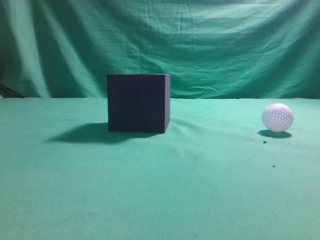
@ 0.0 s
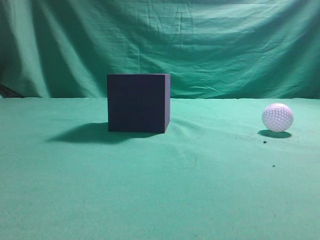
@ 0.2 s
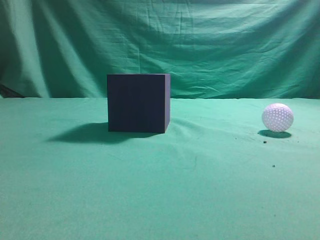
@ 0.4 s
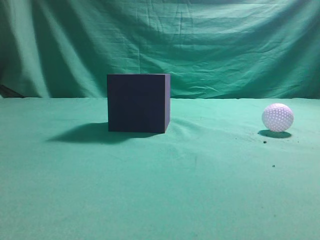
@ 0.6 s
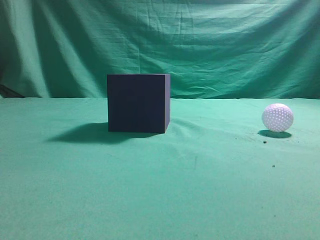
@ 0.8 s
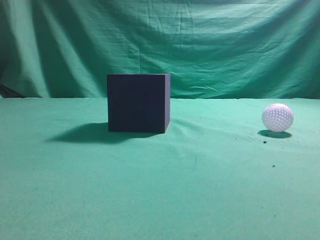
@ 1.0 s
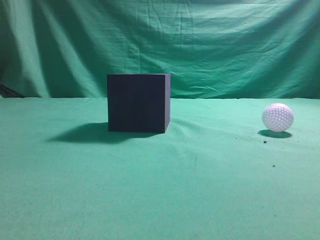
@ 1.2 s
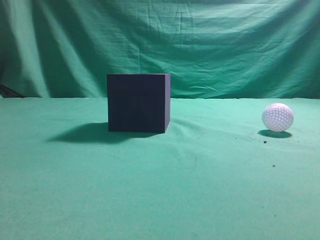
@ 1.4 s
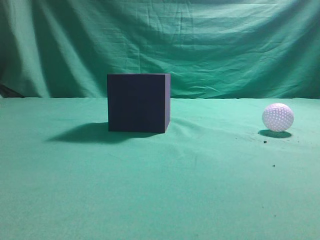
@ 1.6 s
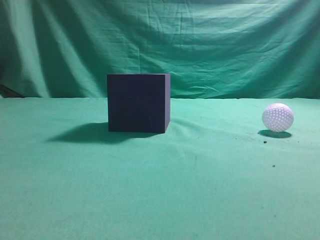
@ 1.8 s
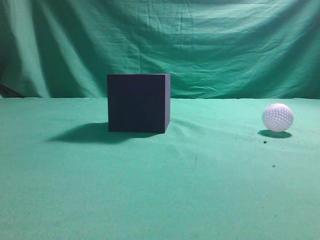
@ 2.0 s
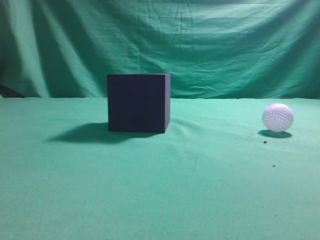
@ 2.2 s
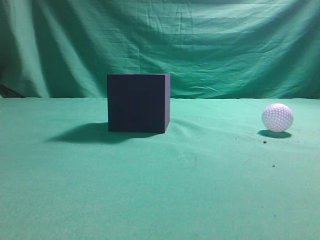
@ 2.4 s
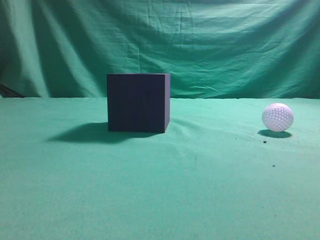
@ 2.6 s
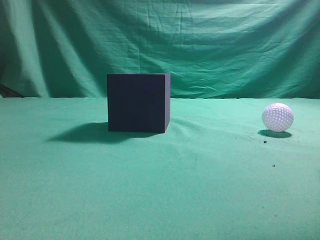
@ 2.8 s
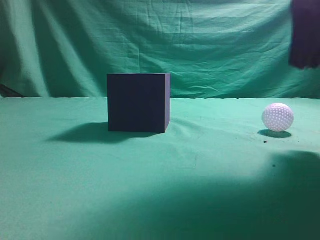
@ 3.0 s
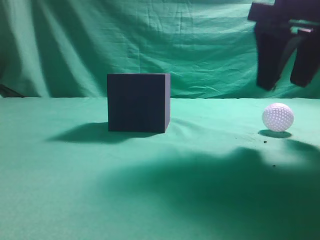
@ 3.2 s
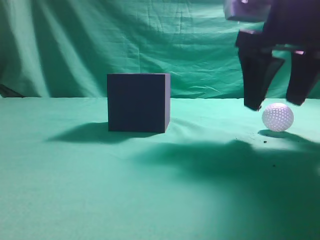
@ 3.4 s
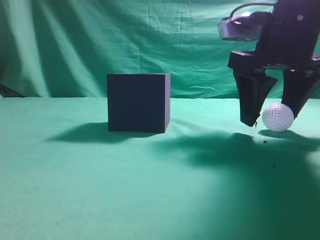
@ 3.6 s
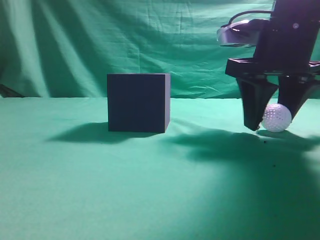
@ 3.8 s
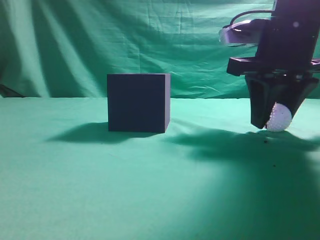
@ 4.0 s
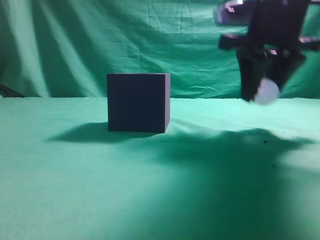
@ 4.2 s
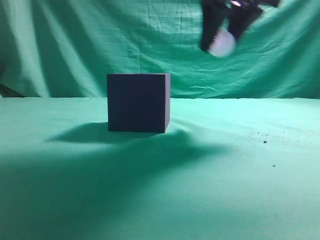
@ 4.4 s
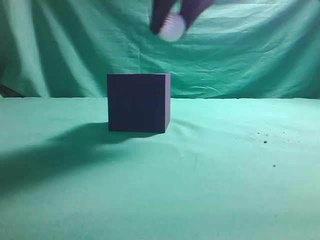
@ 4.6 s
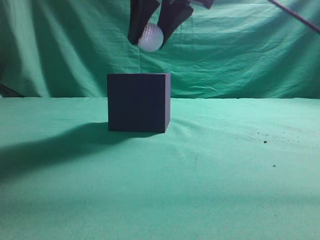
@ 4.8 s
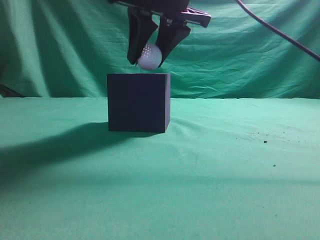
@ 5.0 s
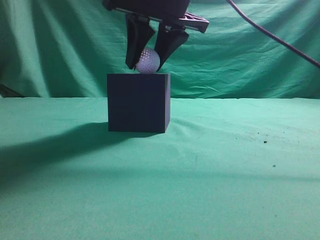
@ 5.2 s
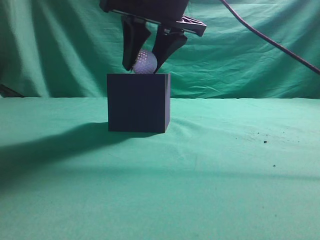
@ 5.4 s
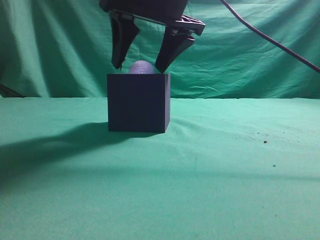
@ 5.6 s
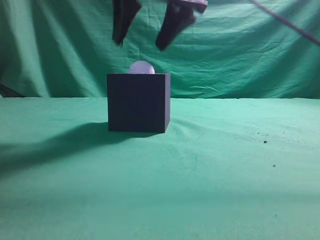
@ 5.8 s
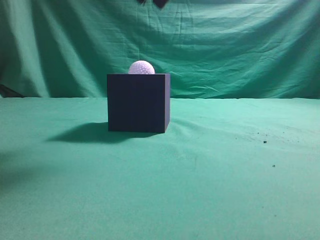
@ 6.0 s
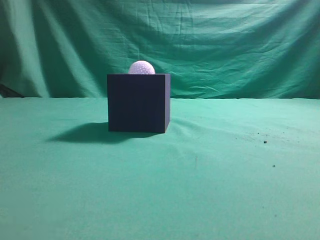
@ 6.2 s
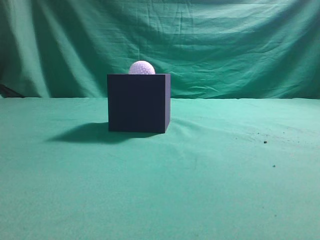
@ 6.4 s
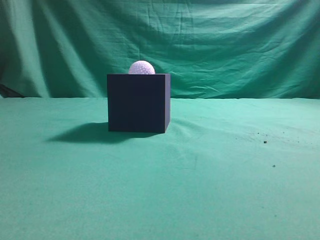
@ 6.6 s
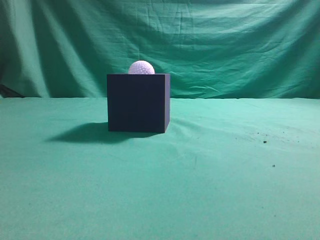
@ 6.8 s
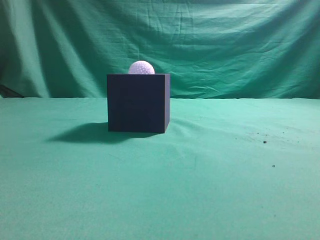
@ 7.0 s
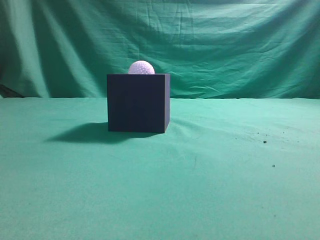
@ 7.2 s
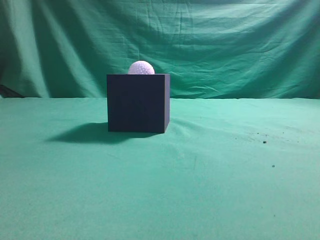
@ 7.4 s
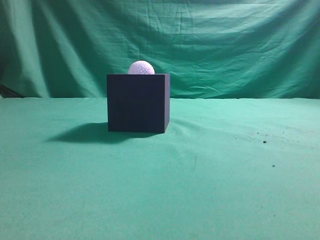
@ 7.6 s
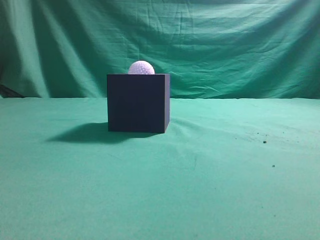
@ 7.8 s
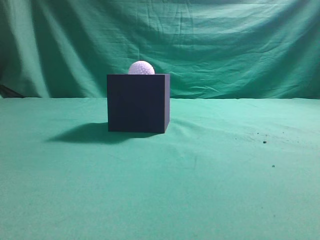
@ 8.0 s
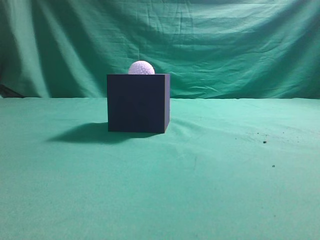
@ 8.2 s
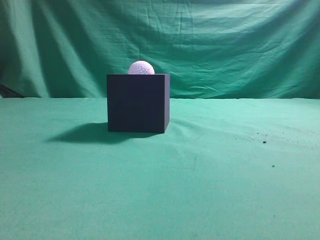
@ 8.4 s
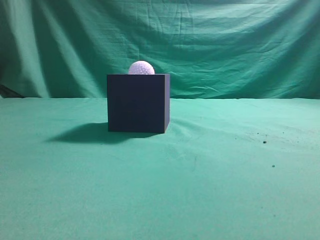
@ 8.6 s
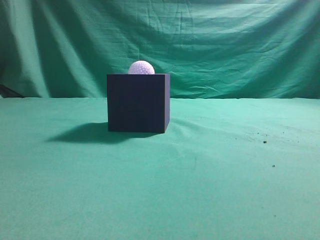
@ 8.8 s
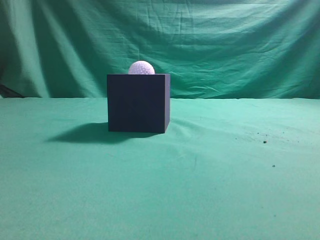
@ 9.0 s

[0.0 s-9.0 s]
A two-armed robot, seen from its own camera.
Task of the whole recording: Pick up the ball and place it in the circular groove above the cube.
Step, 0.0 to 4.2 s: Grasp the sphere on the table.
Step, 4.4 to 5.8 s: Place the sphere into the sphere-shaped recess.
1.6 to 3.0 s: The right gripper travels forward and to the left by about 25 cm.
3.0 to 4.4 s: The right gripper travels to the left and forward by about 10 cm, goes downward and returns, approximately 5 cm each way, and opens and closes again.
4.4 to 6.0 s: The right gripper shifts about 5 cm to the left, and opens and closes again.
